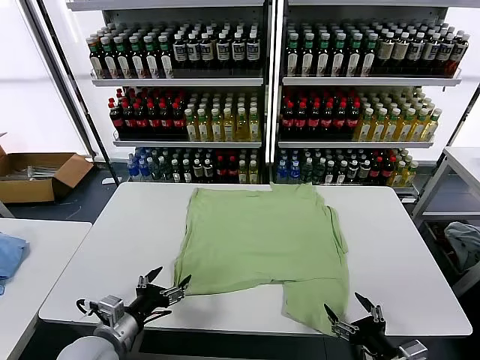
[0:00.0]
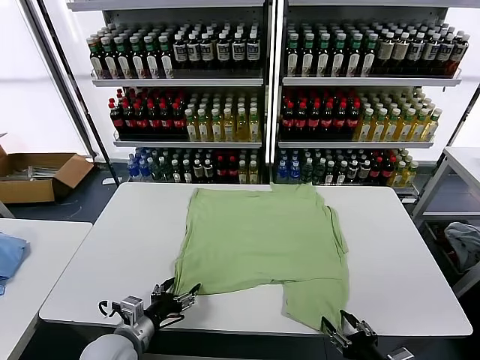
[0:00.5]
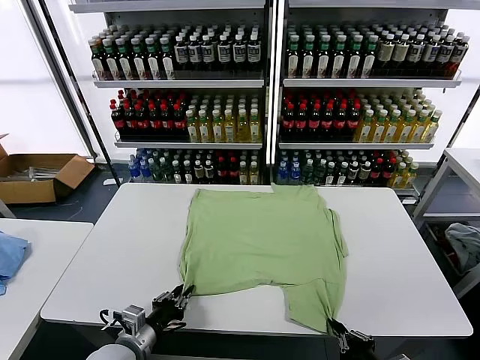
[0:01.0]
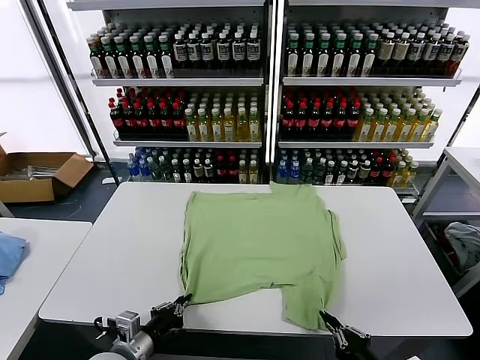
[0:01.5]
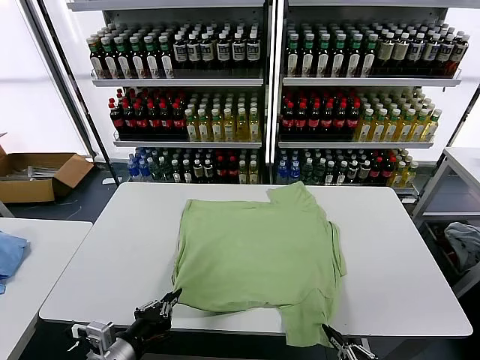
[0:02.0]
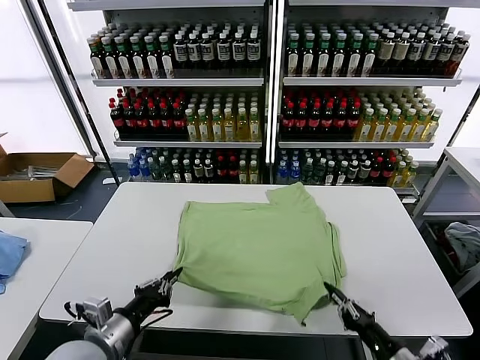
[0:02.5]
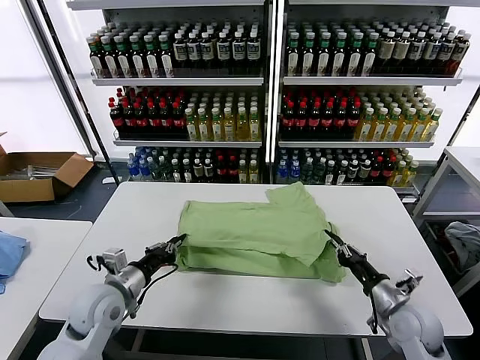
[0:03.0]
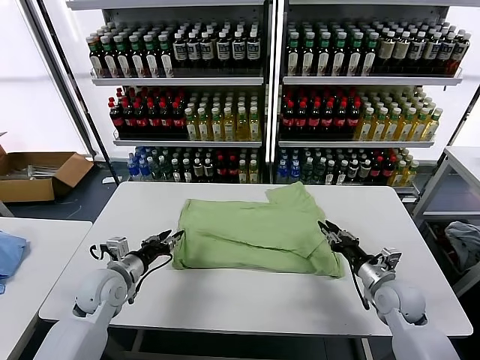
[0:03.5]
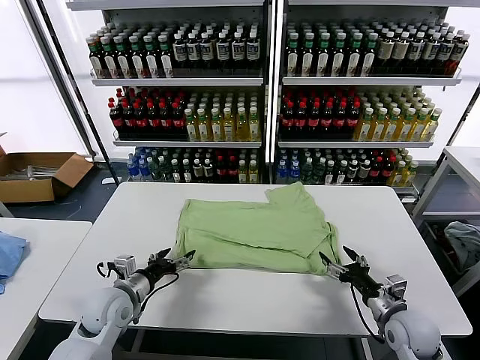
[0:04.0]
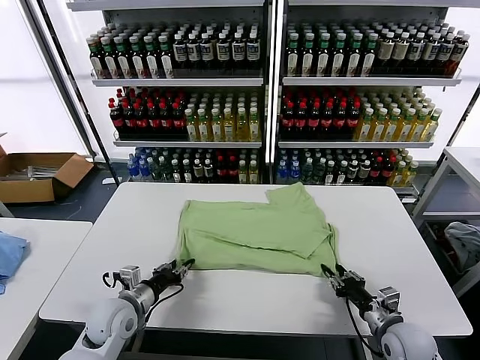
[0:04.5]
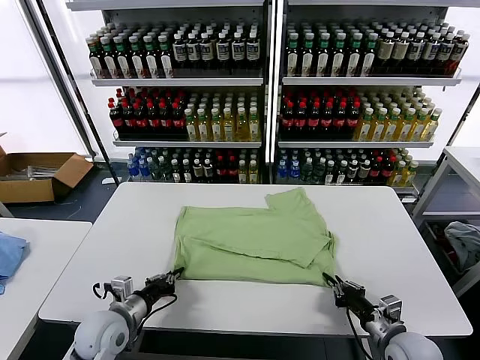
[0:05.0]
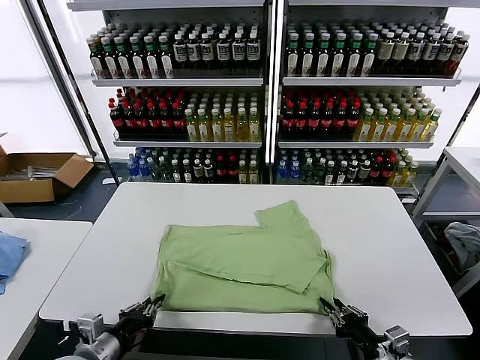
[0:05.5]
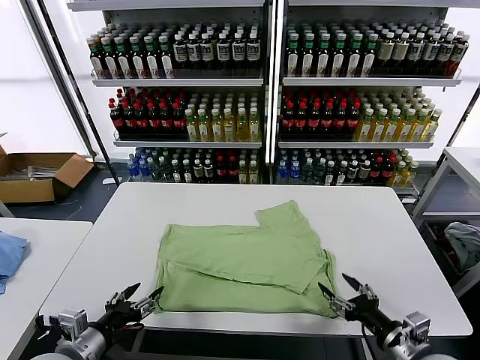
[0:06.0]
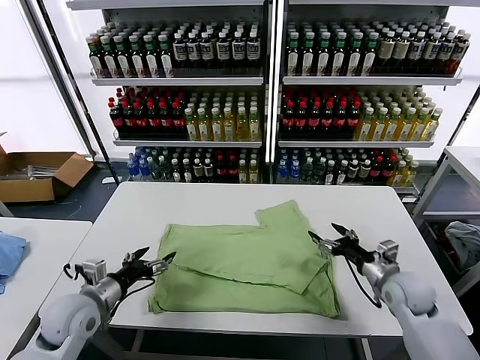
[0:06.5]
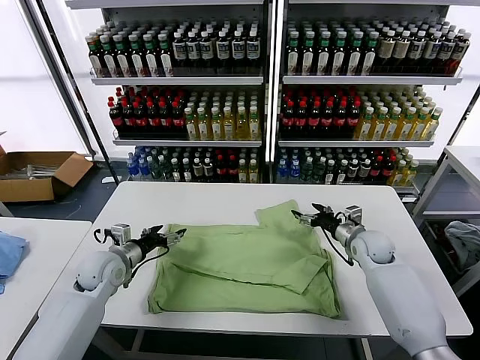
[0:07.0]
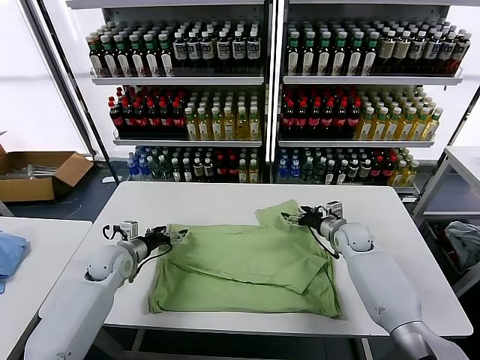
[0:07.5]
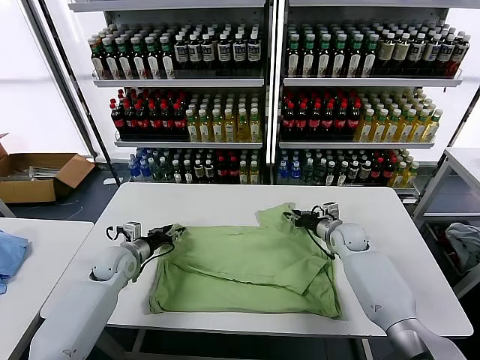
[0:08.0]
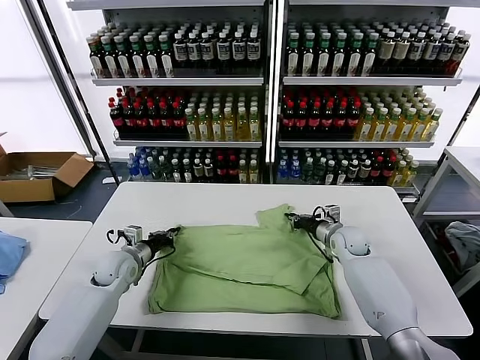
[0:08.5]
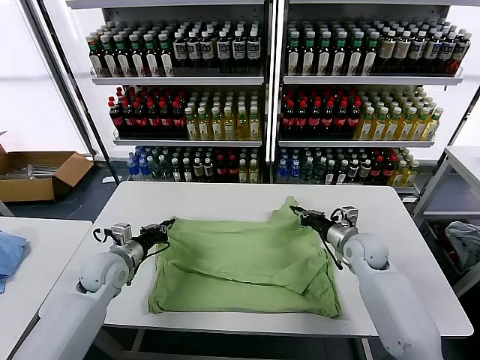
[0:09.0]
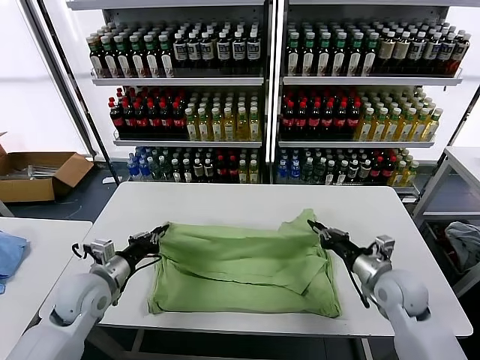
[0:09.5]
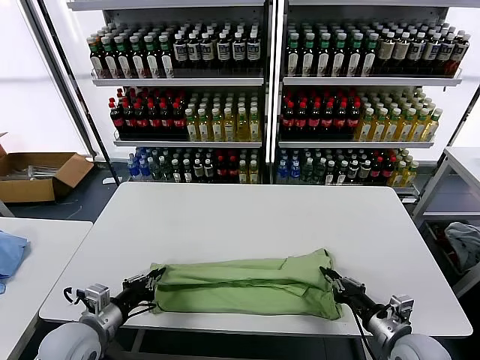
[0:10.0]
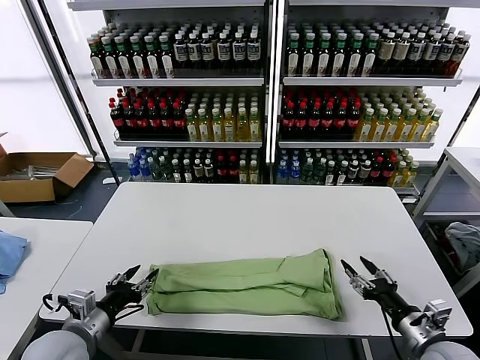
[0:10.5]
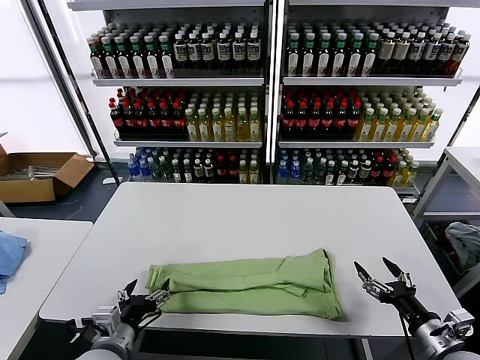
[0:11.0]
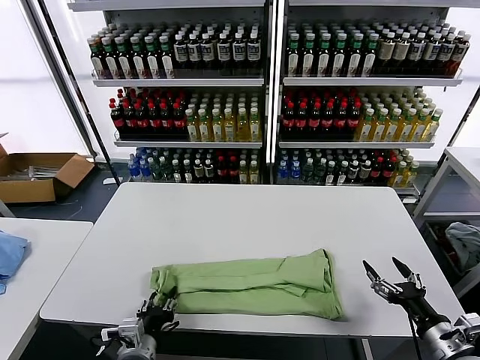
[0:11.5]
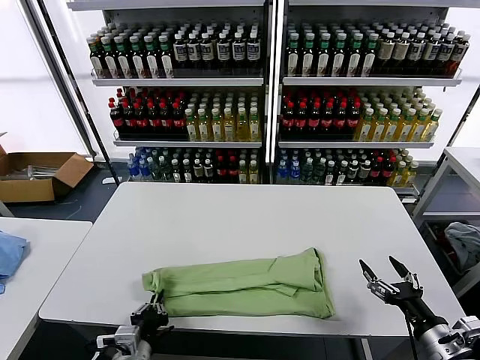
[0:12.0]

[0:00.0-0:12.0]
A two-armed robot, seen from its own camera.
Task of the whole recording: fold and organize the clothes.
Step, 0:00.0 to 0:01.0: use both grippers simultaneously to clamp the lower edge of the clothing fabric.
Step, 0:01.5 to 0:03.5: use both grippers to drag the lower edge of the fabric forward and fold it over the upper edge.
Step, 0:04.0 to 0:05.5: Drag the clothes downward with both gripper.
Step, 0:06.0 to 0:08.0: use both grippers simultaneously to clamp the upper edge of the clothing fabric.
Step, 0:08.5 to 0:10.0: use both grippers to drag the upper edge of the fabric backward and fold it over the lower edge.
Step, 0:10.5 to 0:11.5: use the left gripper to clamp the left edge of the fabric.
0:02.0 to 0:04.0: Both grippers move forward, some 20 cm. The left gripper opens its fingers. Meanwhile the right gripper opens.
0:04.0 to 0:06.0: The right gripper travels upward and backward by some 10 cm, and closes, then reopens; the left gripper shifts some 15 cm backward and upward, and closes, then reopens.
0:06.0 to 0:08.0: The two grippers go about 30 cm forward. The right gripper closes its fingers.
0:08.0 to 0:10.0: The left gripper is displaced backward by roughly 20 cm, and closes; the right gripper goes approximately 30 cm backward.
0:10.0 to 0:12.0: The right gripper shifts approximately 5 cm to the right, and opens, while the left gripper shifts approximately 15 cm to the right, backward and downward, and opens, then closes again.

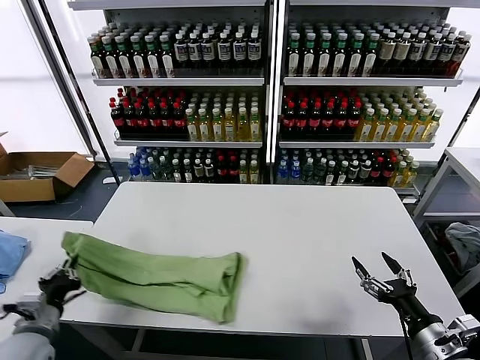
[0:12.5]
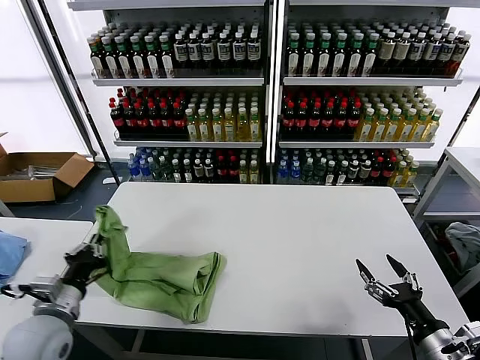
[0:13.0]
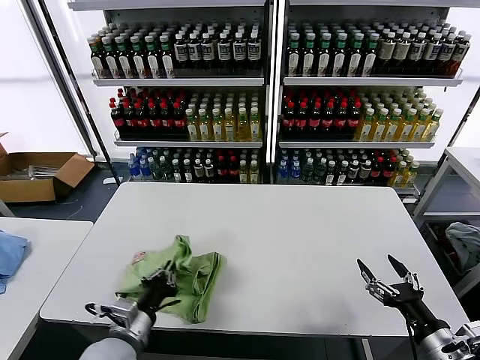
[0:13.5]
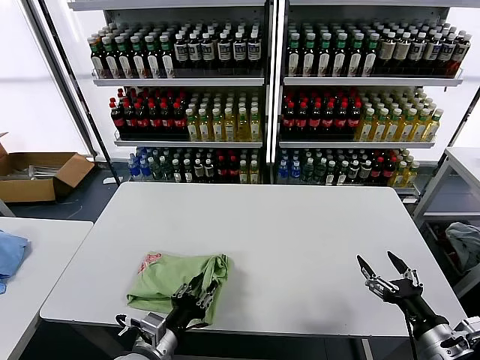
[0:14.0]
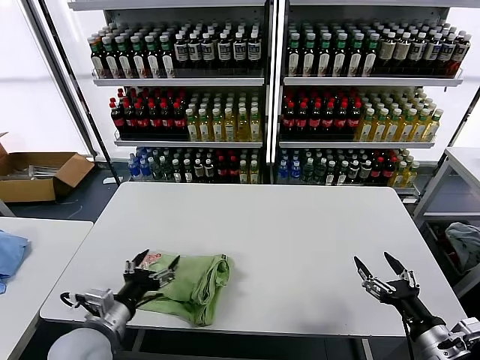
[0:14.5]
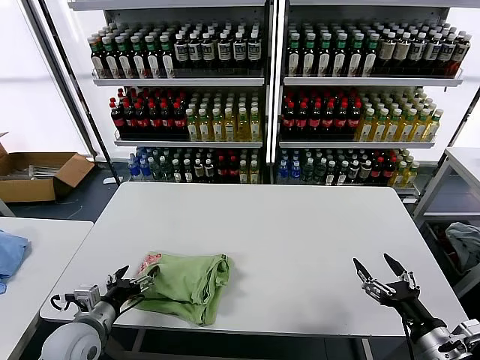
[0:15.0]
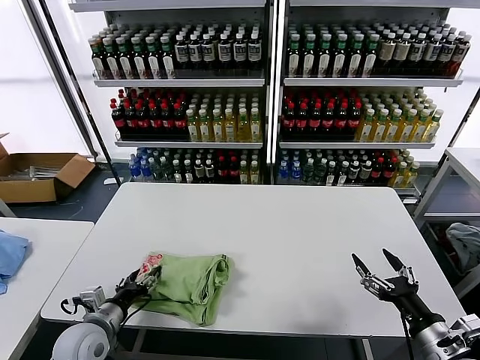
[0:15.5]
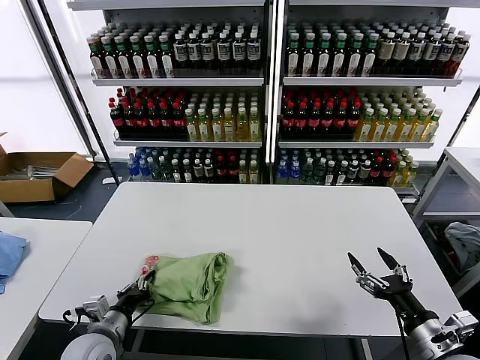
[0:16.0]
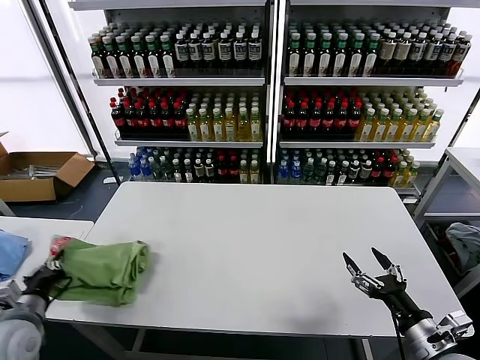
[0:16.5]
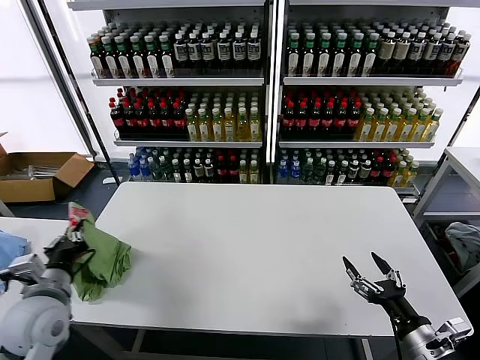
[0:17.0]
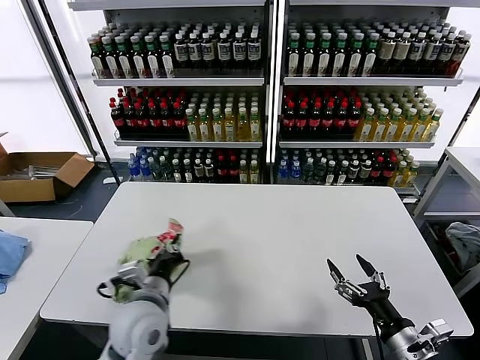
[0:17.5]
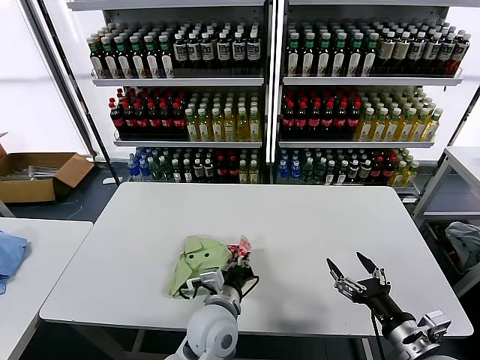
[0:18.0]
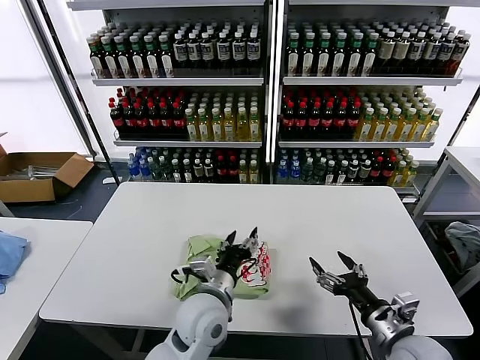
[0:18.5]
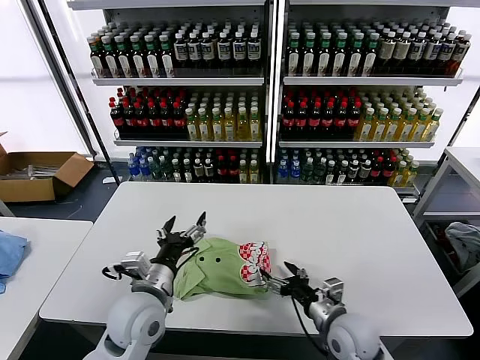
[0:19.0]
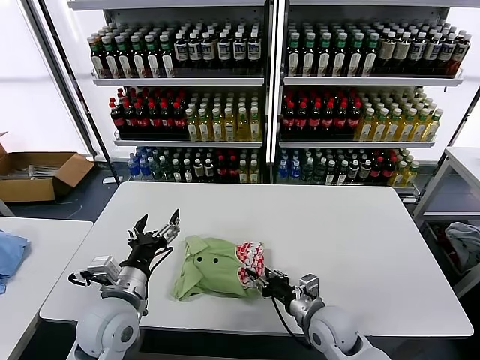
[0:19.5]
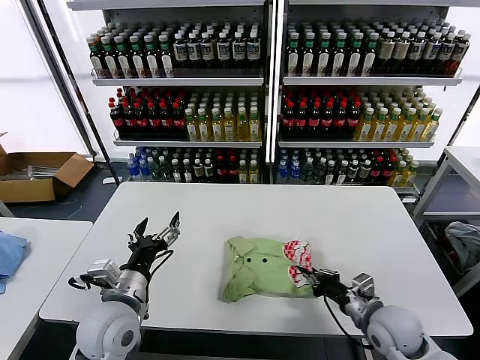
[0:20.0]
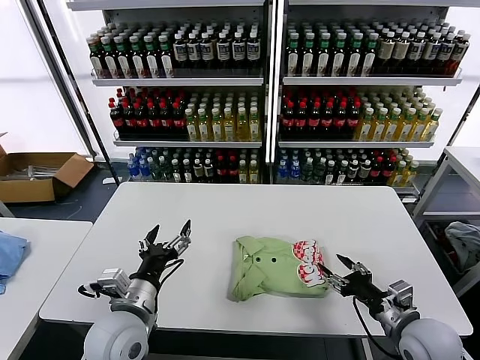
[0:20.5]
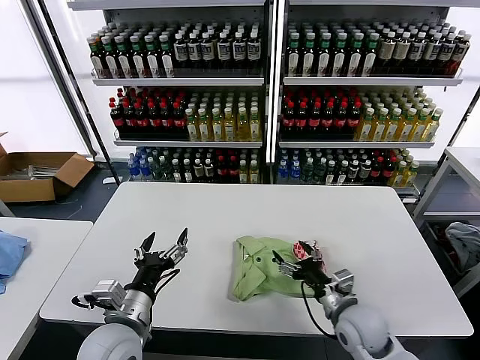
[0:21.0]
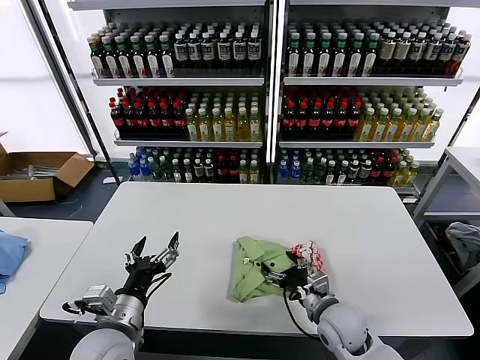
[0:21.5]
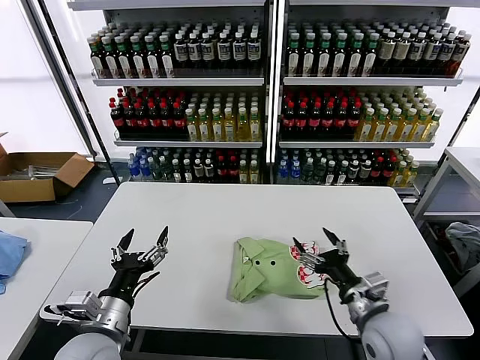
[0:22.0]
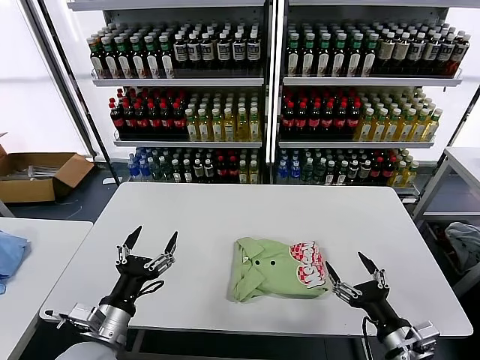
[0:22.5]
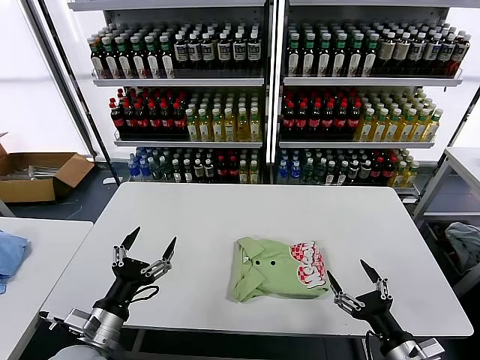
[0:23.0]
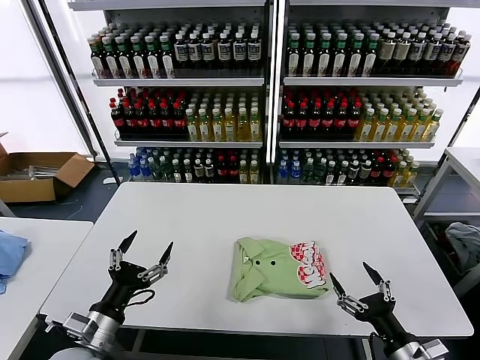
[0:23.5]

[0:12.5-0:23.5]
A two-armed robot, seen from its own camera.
Task of the whole recording: fold and organize the clothes.
Step, 0:12.5 to 0:14.0: use the left gripper to drag the left edge of the fabric to the left and folds it over the right edge.
Step, 0:14.5 to 0:18.0: Flip the folded clothes over with left gripper.
Step, 0:18.5 to 0:21.5: Drag the clothes to the center of the table.
0:12.5 to 0:14.5: The left gripper travels to the right by about 15 cm, and opens its fingers.
0:14.5 to 0:16.0: The left gripper travels downward by some 10 cm, and closes its fingers.
0:16.0 to 0:18.0: The left gripper travels to the right by some 25 cm.
0:18.0 to 0:20.0: The right gripper heads forward and downward, covering some 10 cm, goes to the left and returns, some 15 cm each way, and closes its fingers. Meanwhile the left gripper goes roughly 15 cm to the left, and opens up.
0:20.0 to 0:21.5: The right gripper shifts some 10 cm to the left, and opens its fingers.
0:21.5 to 0:23.5: The left gripper goes about 5 cm to the left; the right gripper goes about 20 cm backward and to the right.

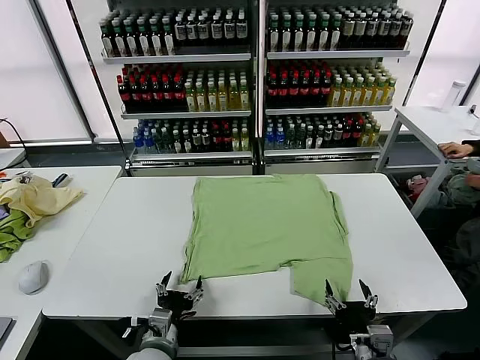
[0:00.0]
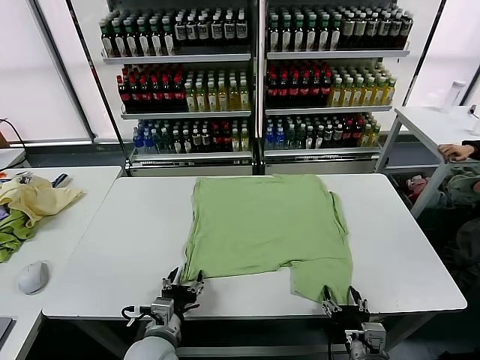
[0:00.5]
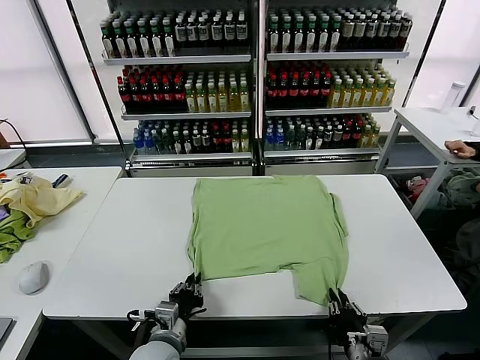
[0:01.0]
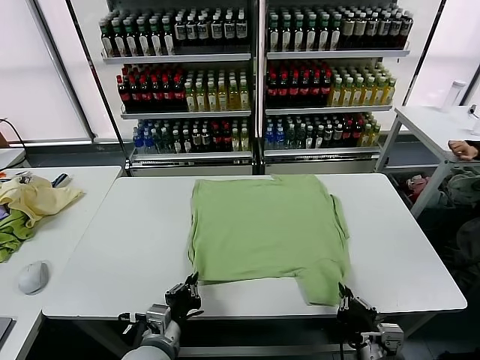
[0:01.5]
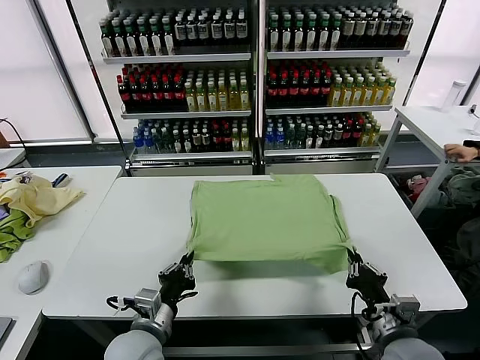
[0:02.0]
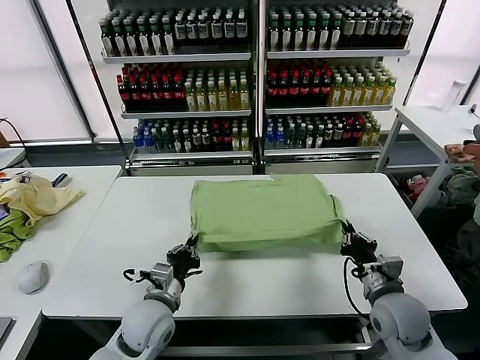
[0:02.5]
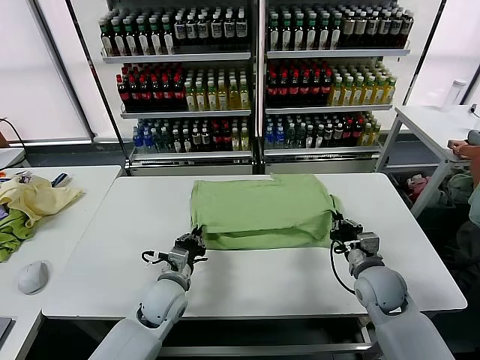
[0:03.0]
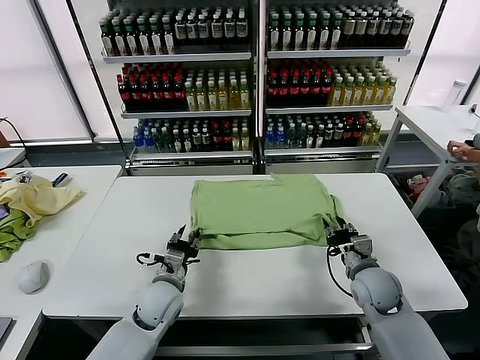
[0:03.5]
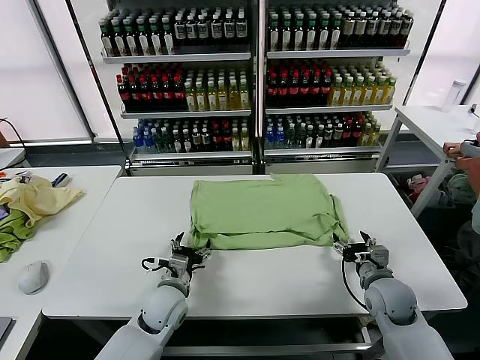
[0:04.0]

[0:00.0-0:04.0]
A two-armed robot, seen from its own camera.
Task of the whole recording: fold and organize the clothes.
Step, 0:00.0 to 0:01.0: use both grippers simultaneously to clamp the lower edge of the clothing fabric.
Step, 0:01.5 to 0:03.5: use both grippers to drag the lower edge of the fabric forward and fold it over the upper edge.
0:02.0 to 0:04.0: Both grippers move forward and downward, some 15 cm. The left gripper opens up, while the right gripper opens up.
